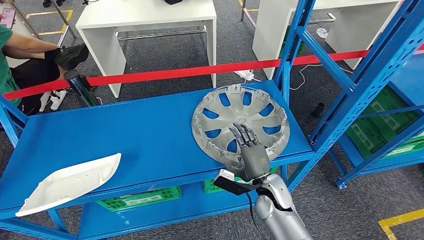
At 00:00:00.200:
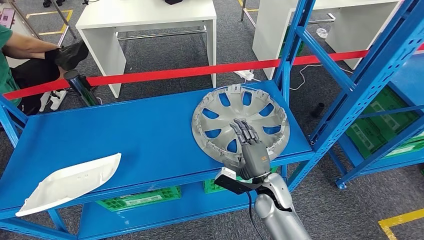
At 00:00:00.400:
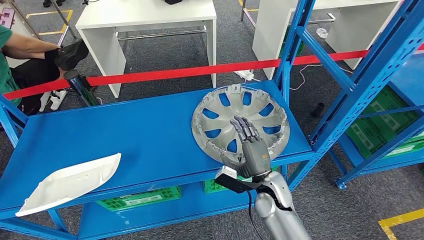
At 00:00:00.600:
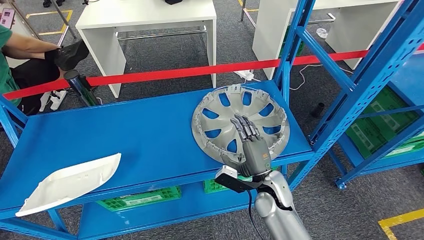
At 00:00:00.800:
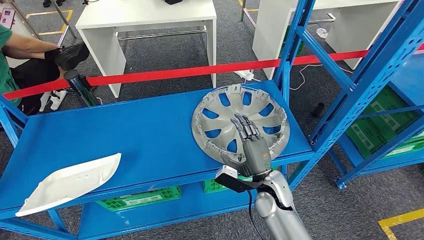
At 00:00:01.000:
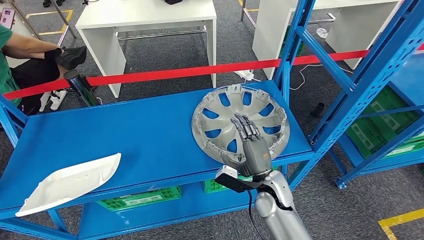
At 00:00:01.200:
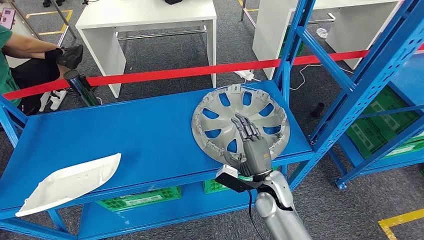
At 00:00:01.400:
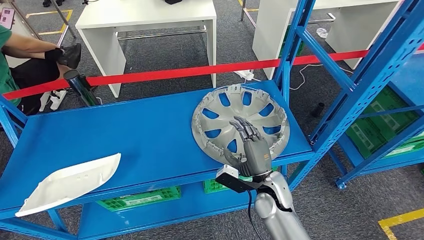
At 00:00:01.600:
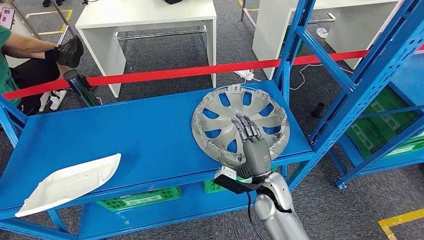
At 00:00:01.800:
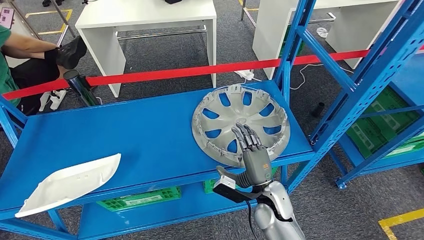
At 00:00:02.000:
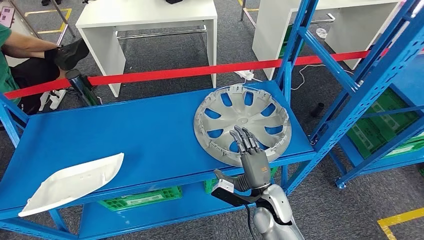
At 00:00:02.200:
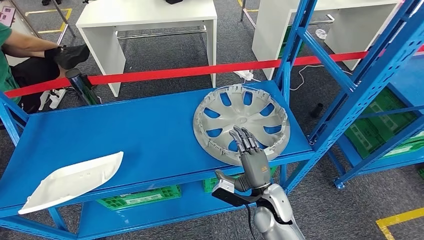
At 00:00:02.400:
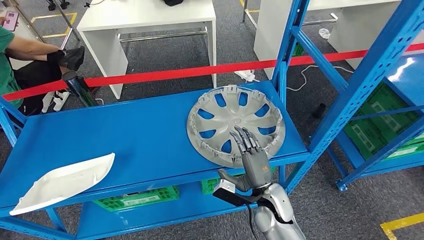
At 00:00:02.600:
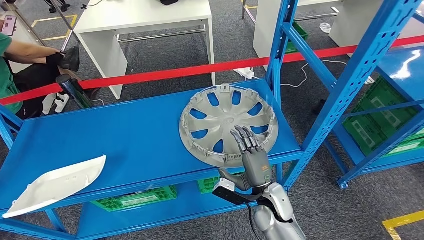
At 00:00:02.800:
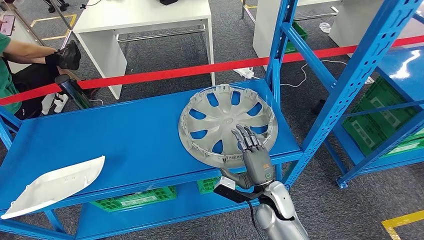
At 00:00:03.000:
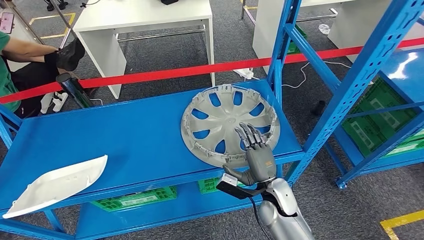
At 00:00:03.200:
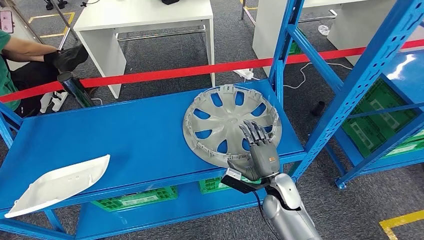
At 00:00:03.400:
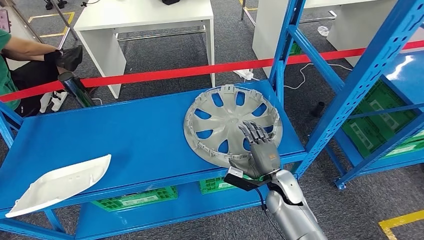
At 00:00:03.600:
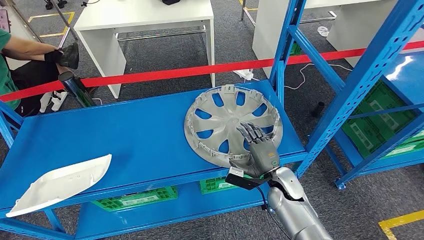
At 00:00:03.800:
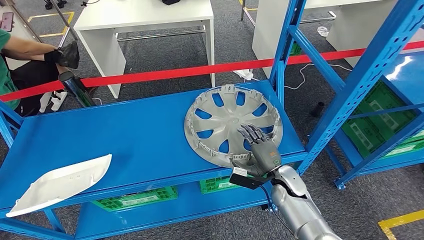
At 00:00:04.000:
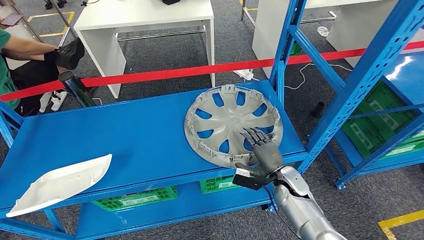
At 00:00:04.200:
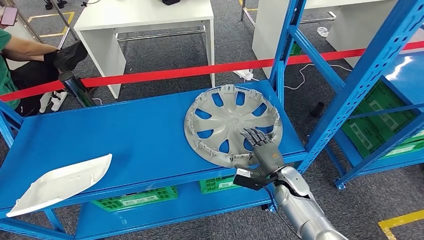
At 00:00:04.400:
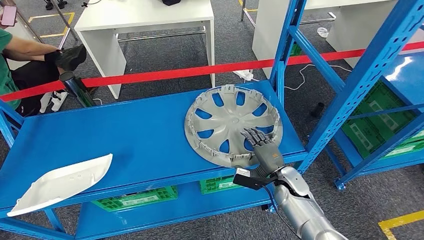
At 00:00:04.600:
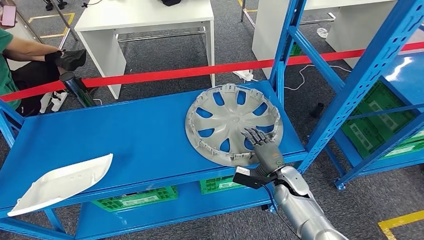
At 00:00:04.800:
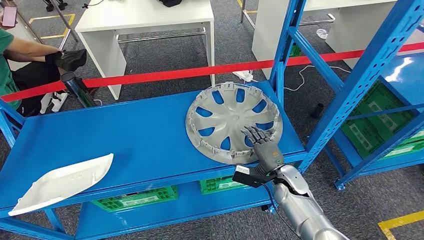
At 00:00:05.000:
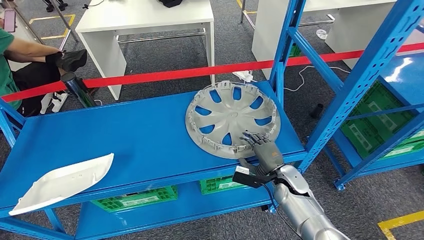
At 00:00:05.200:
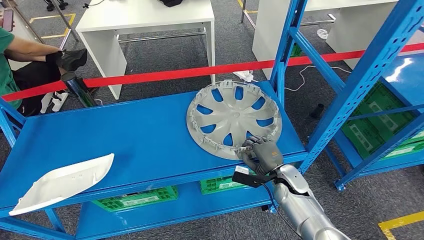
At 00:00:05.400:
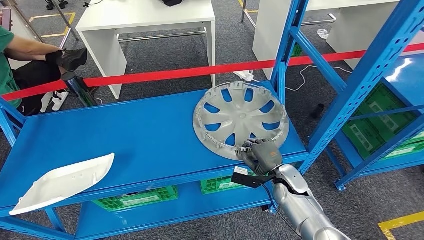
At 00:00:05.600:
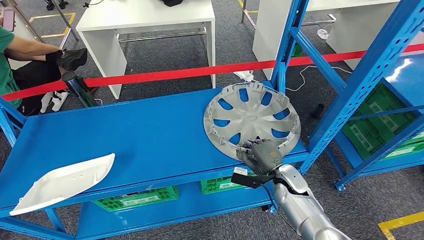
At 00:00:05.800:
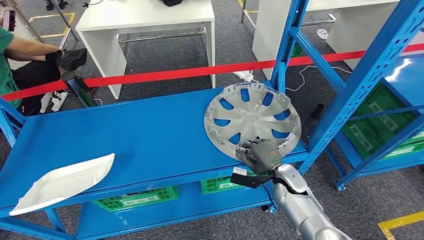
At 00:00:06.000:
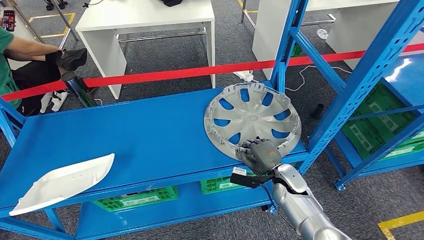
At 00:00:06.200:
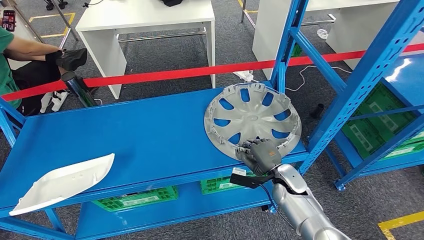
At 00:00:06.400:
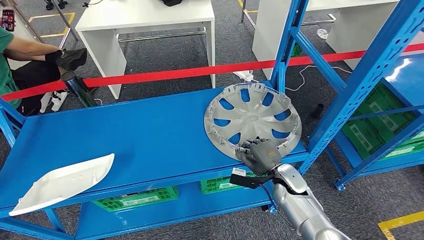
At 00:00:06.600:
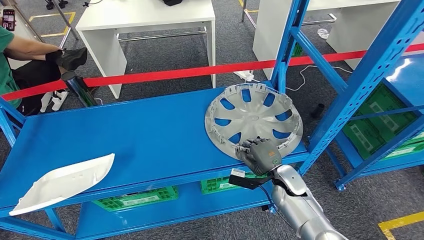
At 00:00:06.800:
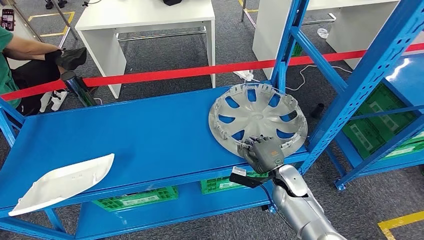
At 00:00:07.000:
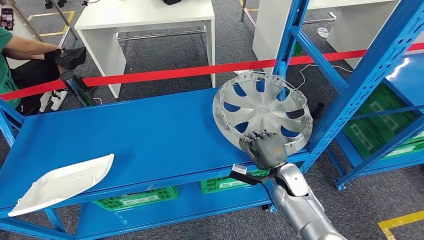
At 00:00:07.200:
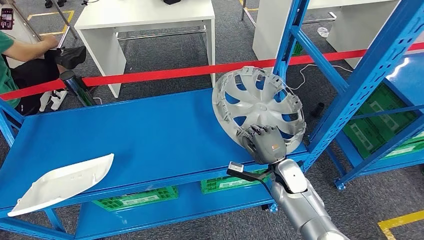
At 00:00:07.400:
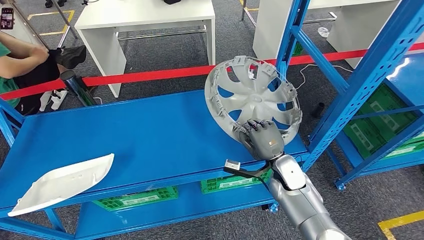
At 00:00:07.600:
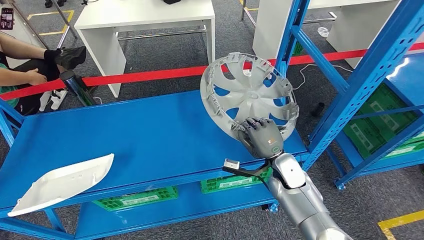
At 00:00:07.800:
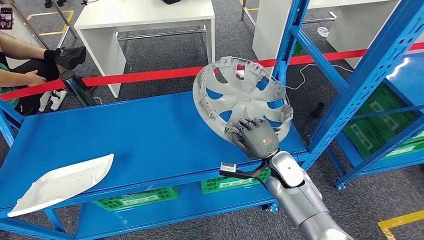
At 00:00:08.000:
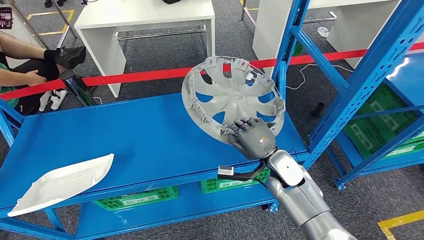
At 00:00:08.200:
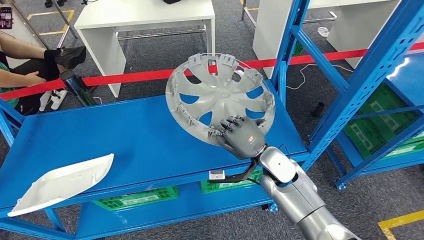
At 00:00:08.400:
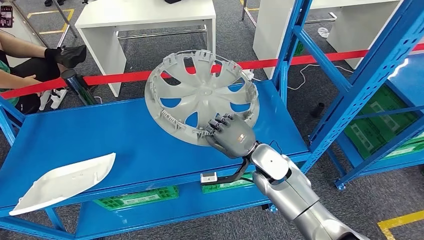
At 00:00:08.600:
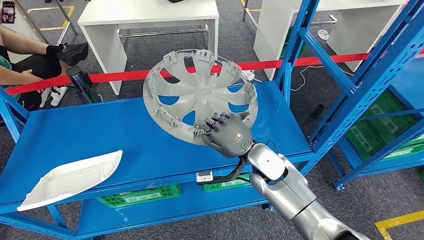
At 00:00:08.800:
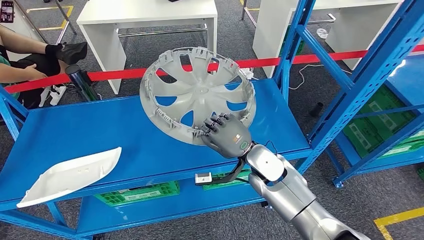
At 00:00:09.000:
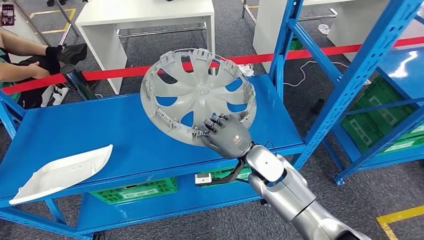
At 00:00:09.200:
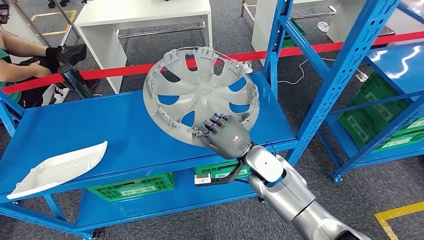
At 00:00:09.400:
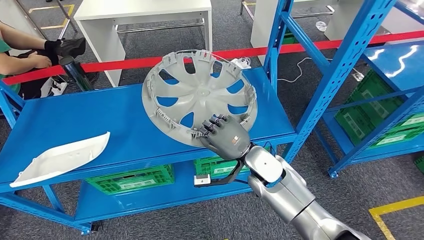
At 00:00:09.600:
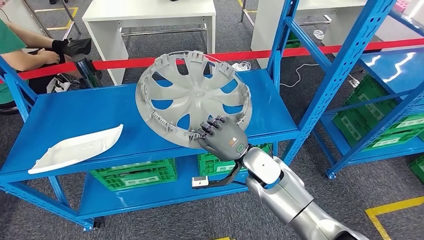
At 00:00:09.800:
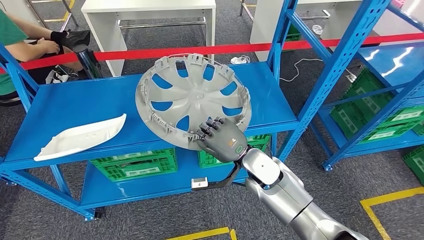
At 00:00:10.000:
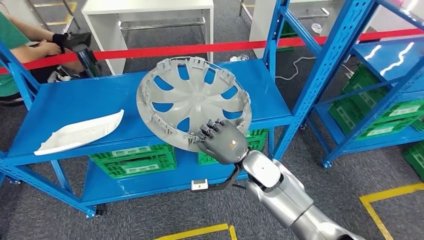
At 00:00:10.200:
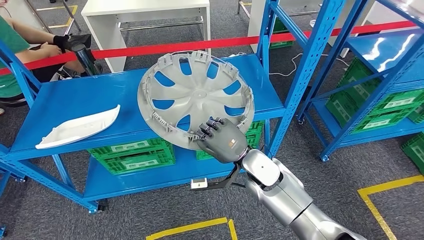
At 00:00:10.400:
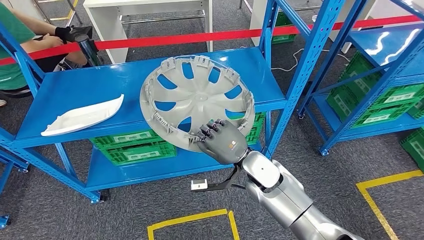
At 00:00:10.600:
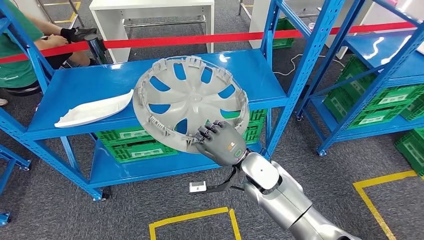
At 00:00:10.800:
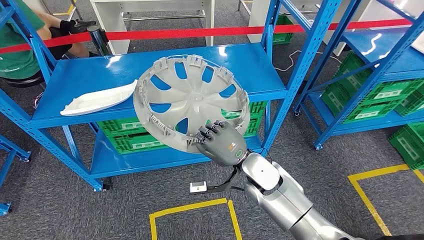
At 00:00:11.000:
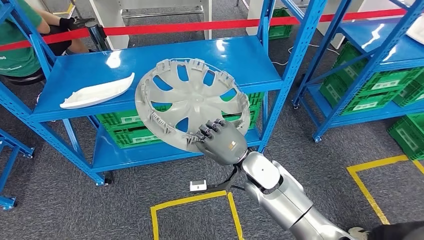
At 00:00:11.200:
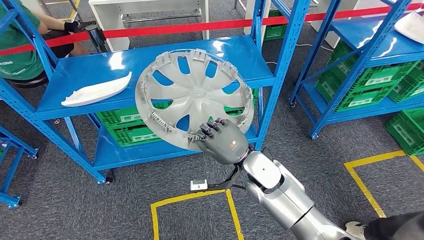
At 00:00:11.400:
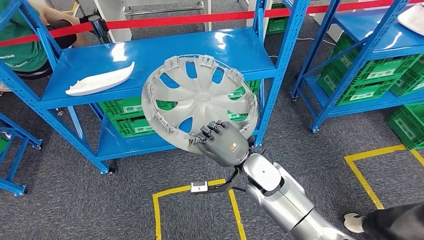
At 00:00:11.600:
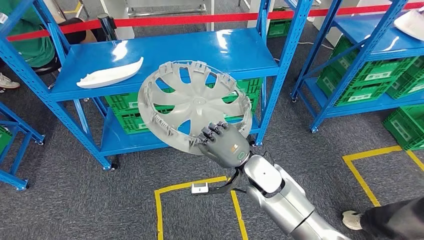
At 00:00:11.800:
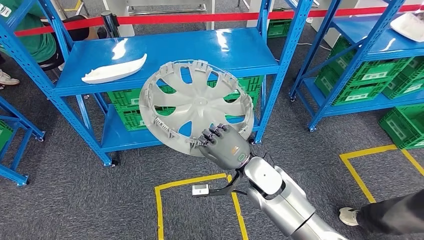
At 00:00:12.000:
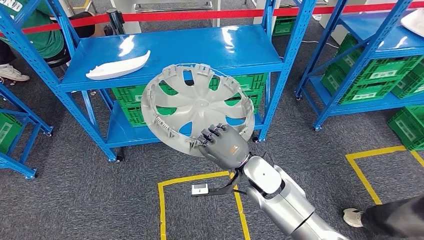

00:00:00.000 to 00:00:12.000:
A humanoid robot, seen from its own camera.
Step, 00:00:00.000 to 00:00:09.400: Take small components from the rack.
00:00:00.000 to 00:00:01.600: The hands make only small movements.
00:00:03.000 to 00:00:04.400: The right hand moves to the right, about 5 cm.
00:00:04.400 to 00:00:06.000: Both hands stay put.
00:00:06.000 to 00:00:07.600: The right hand is displaced upward by roughly 5 cm.

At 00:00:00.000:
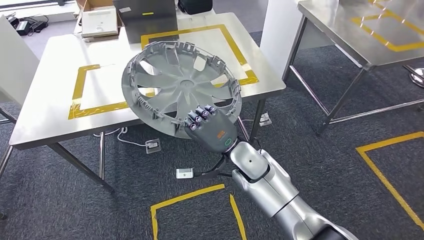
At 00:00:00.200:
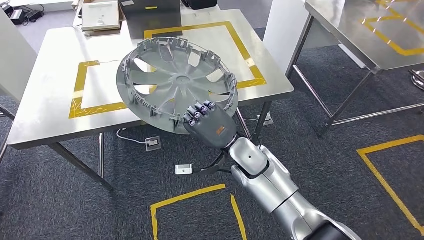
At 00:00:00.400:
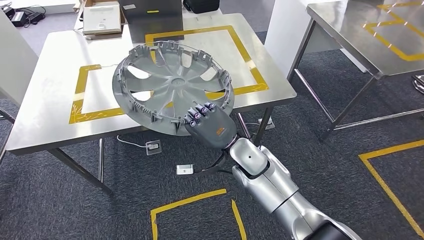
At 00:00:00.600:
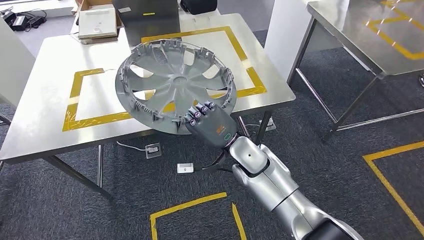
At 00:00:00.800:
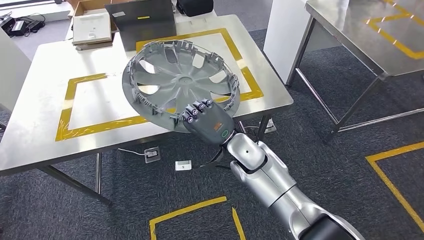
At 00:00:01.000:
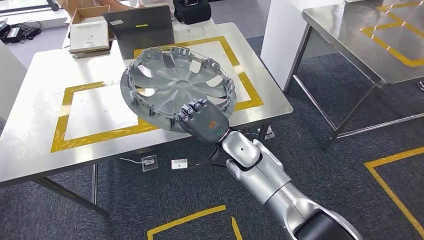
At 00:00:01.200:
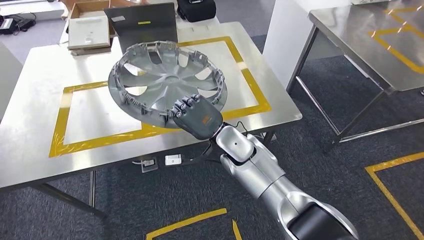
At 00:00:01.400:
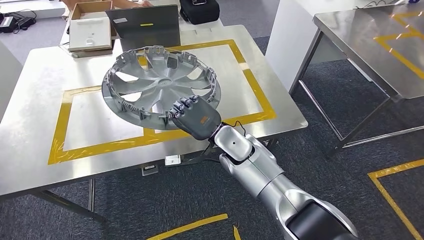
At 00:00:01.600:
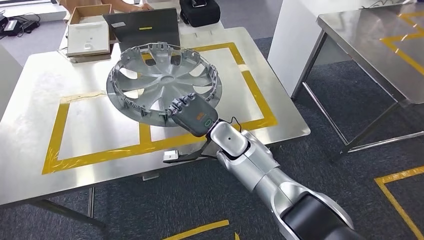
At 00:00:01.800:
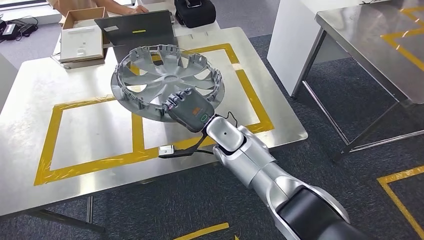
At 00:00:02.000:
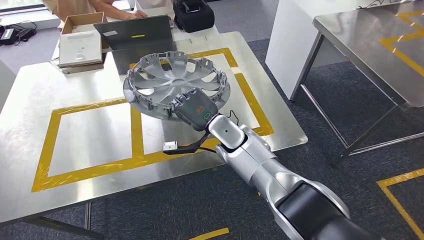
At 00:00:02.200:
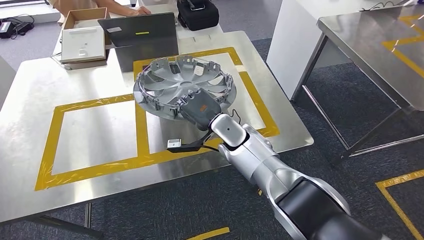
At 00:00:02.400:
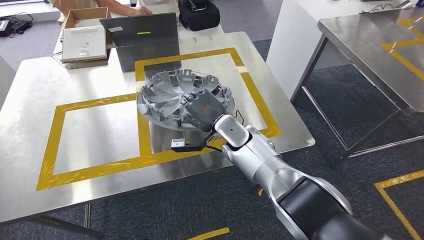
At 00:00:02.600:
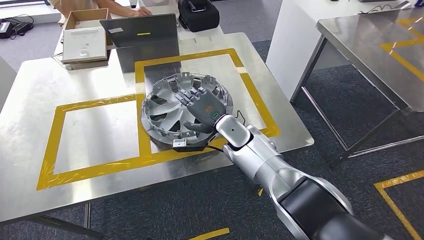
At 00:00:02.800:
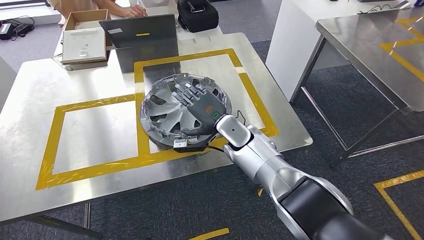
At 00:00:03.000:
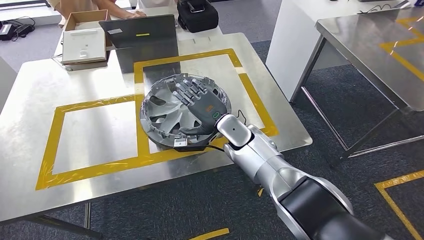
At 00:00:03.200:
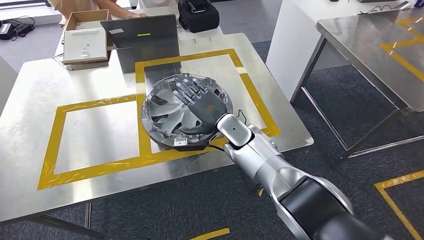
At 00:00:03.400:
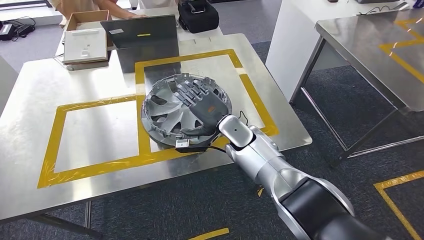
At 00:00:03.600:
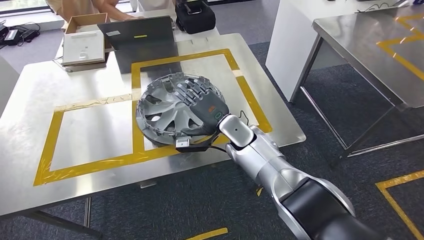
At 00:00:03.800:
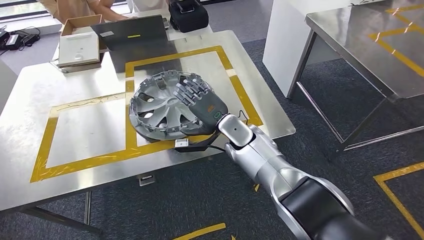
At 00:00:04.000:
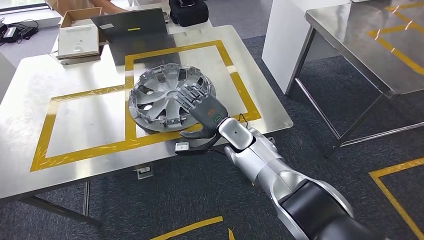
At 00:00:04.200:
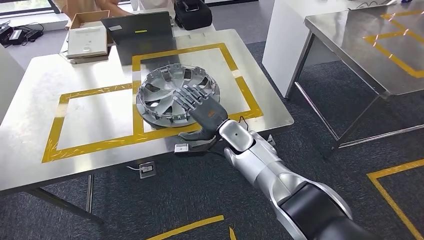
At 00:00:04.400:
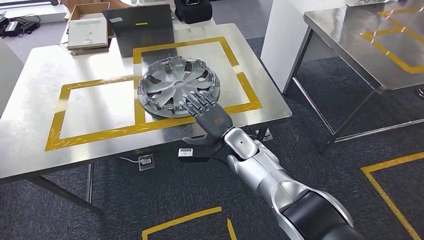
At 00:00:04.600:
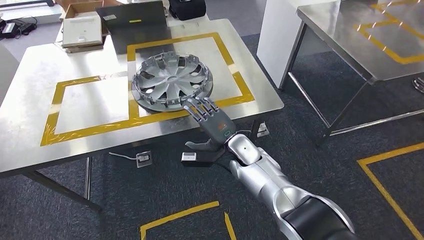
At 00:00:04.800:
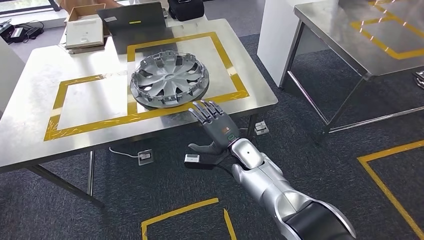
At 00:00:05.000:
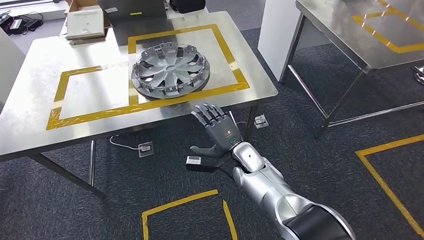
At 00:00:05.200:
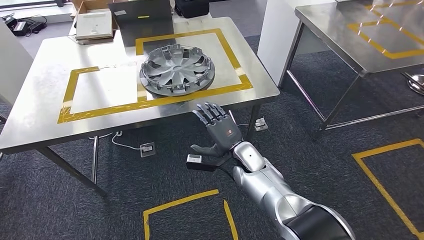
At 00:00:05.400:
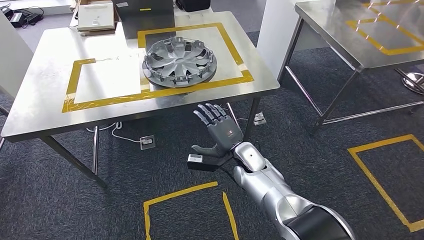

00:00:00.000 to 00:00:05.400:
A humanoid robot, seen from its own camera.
Step, 00:00:01.000 to 00:00:03.600: Insert the small parts into the corresponding holes on the workbench.
